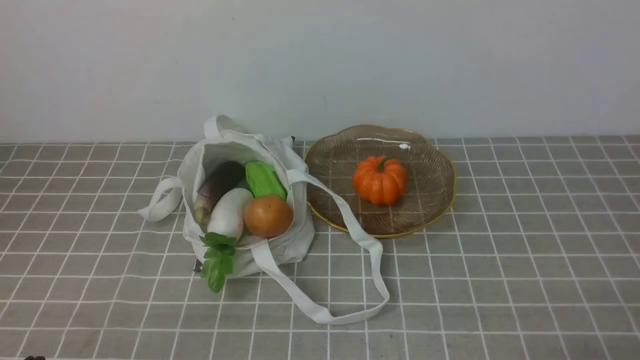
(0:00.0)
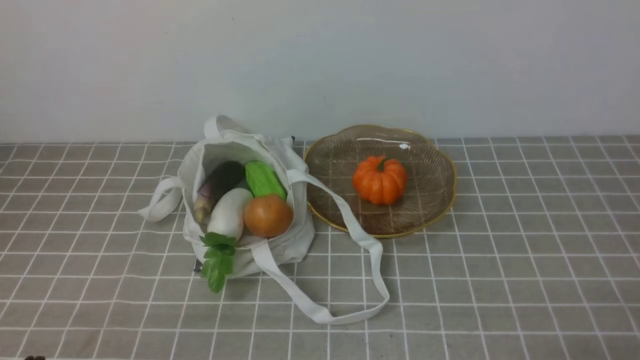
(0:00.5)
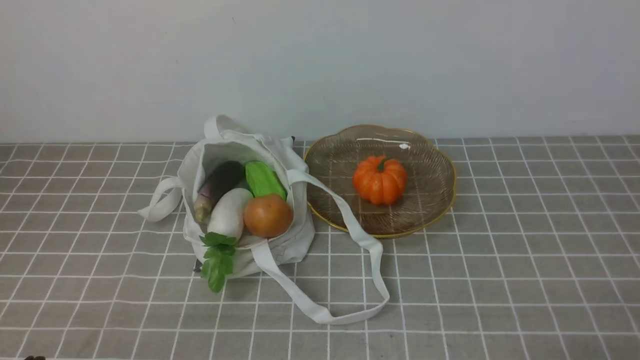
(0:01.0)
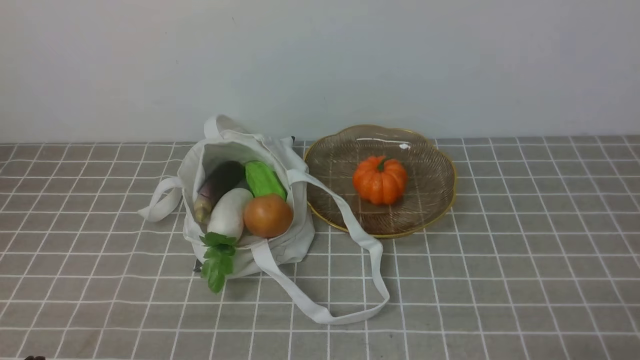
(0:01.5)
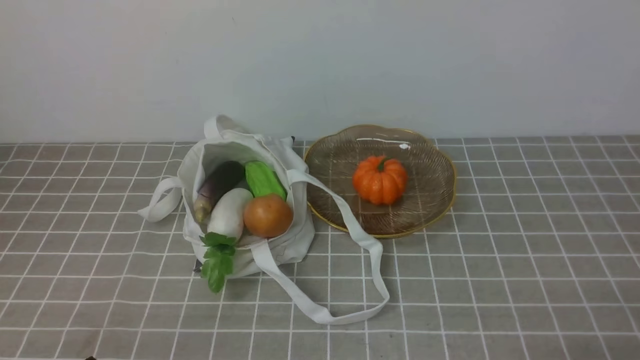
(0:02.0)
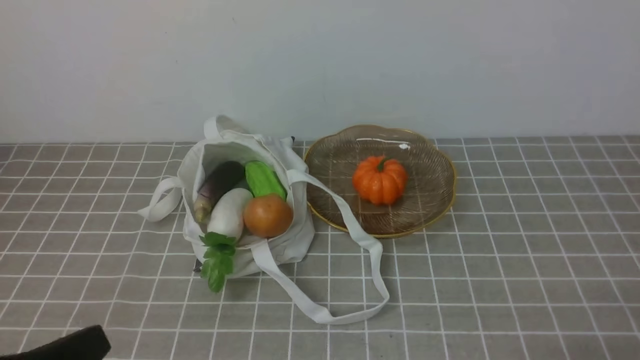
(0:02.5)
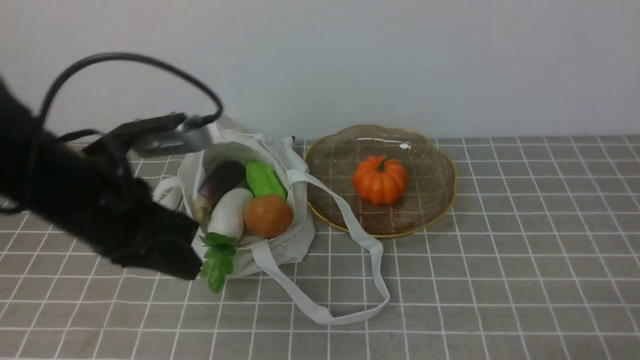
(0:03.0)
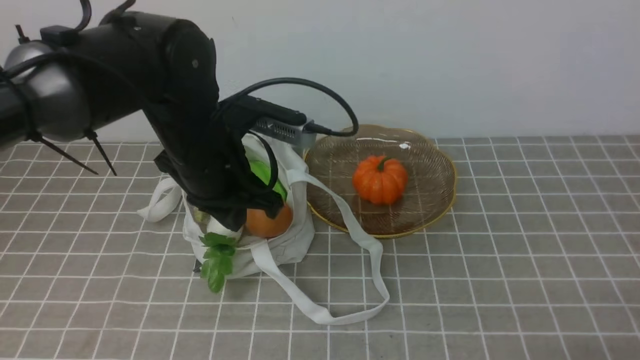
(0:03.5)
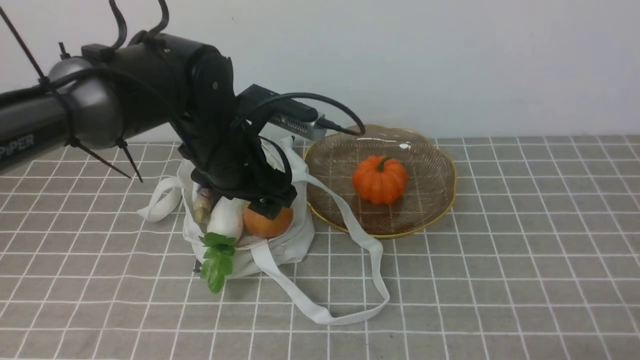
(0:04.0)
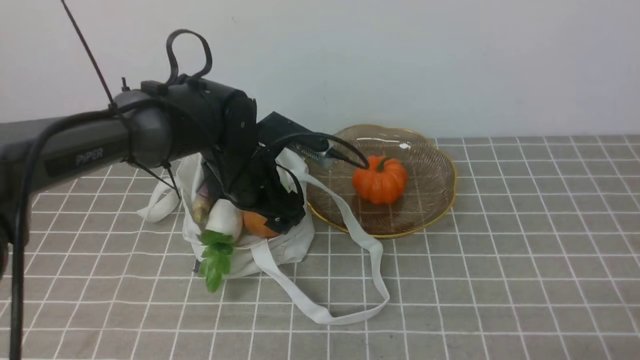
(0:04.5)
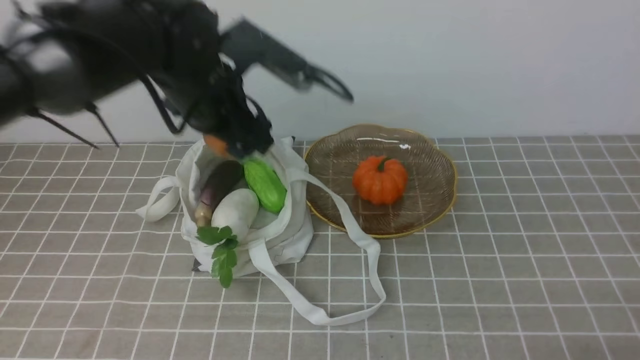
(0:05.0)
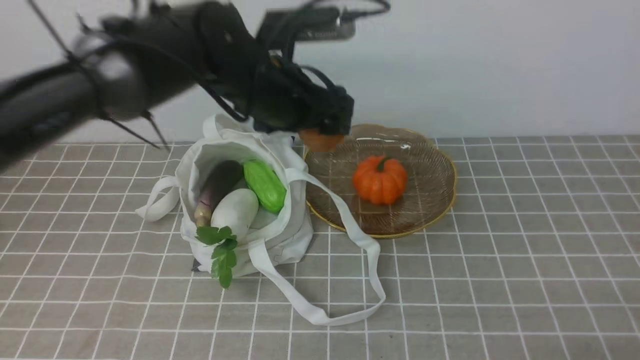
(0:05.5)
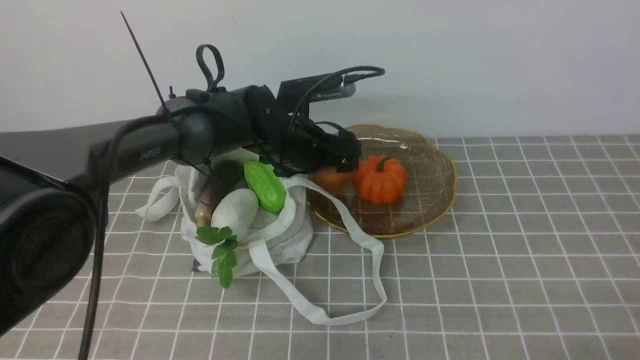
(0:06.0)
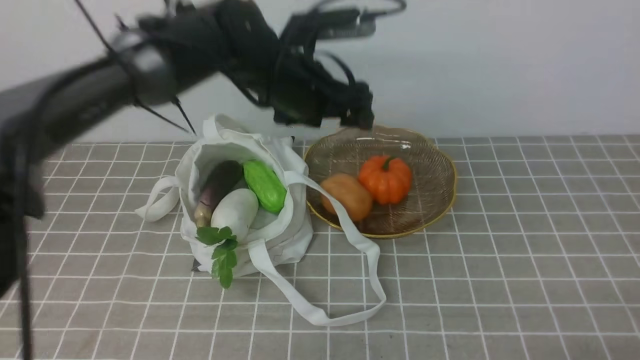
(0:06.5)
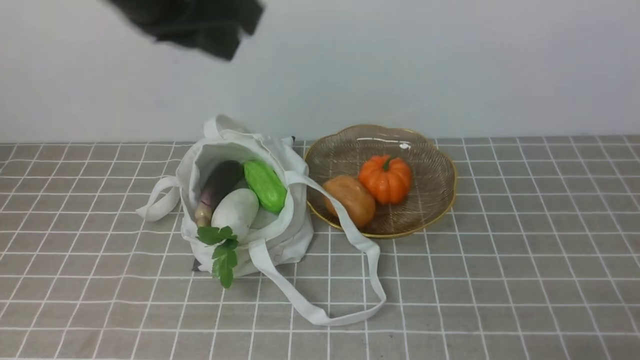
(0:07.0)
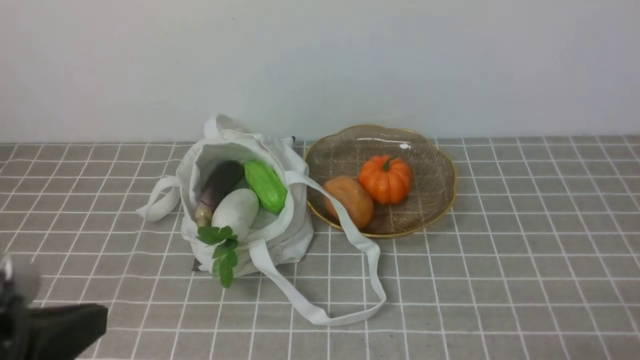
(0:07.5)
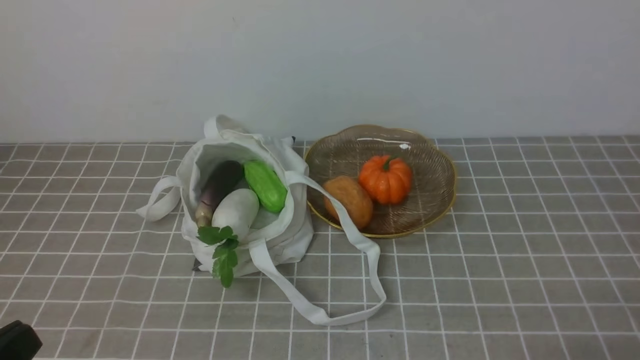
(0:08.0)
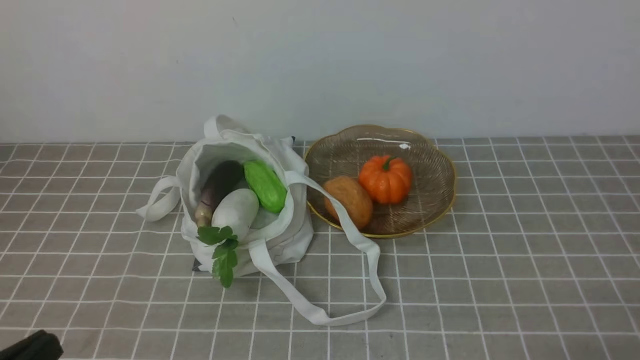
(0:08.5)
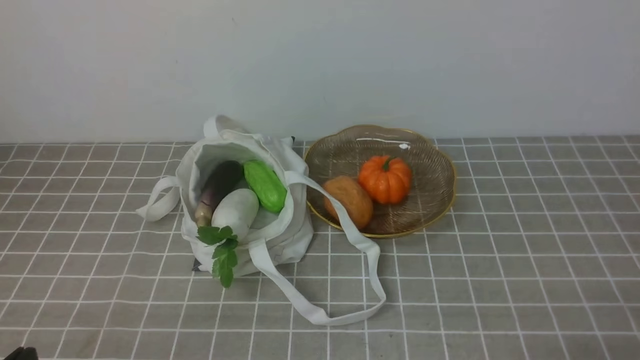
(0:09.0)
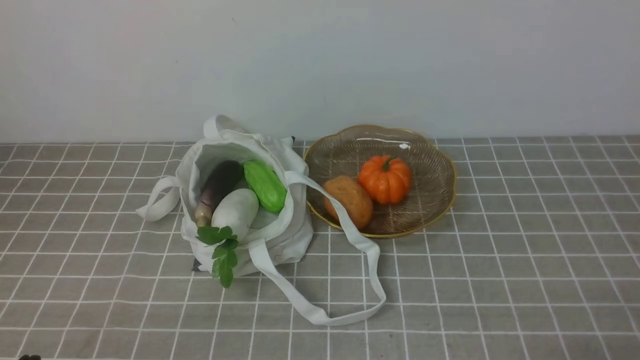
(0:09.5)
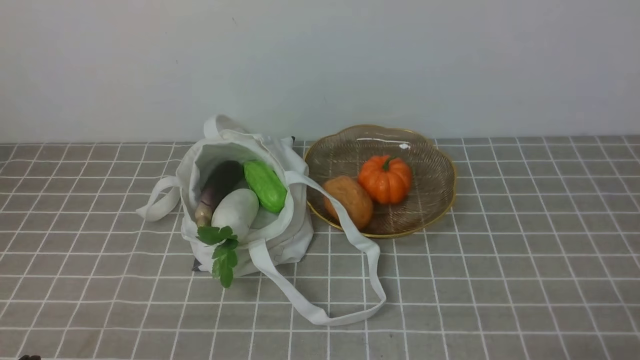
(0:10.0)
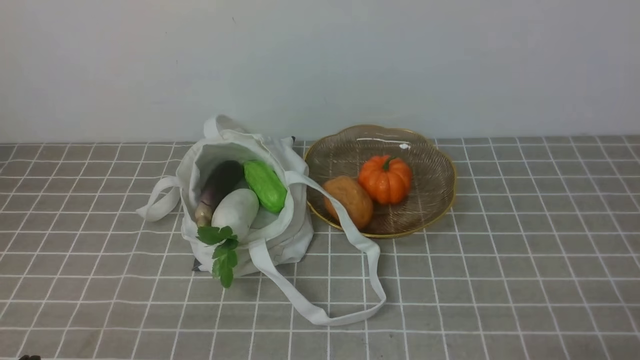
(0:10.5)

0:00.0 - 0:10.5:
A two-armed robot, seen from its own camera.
Task of the whole recording: take vegetables from bag on grey coffee tablecloth place on plate.
Step, 0:00.0 - 0:04.5: Grasp the potato with left gripper.
Step, 0:05.0 - 0:06.5: Place the potato on the plate with left gripper.
0:02.0 - 0:04.0: The left gripper shifts roughly 35 cm forward and to the right, and opens.
0:04.0 - 0:06.5: The left gripper goes up and down, some 10 cm each way, reversing 3 times.
0:06.5 - 0:08.5: The left gripper is displaced backward and to the left by roughly 40 cm, and closes.

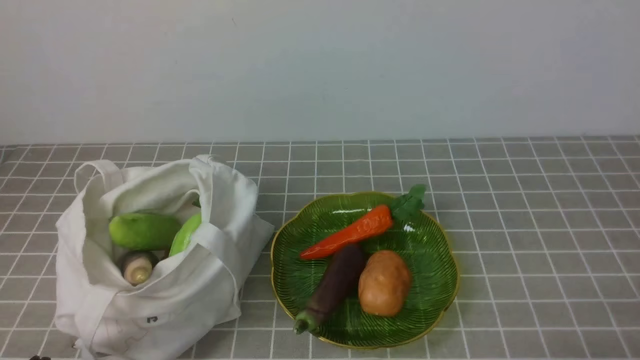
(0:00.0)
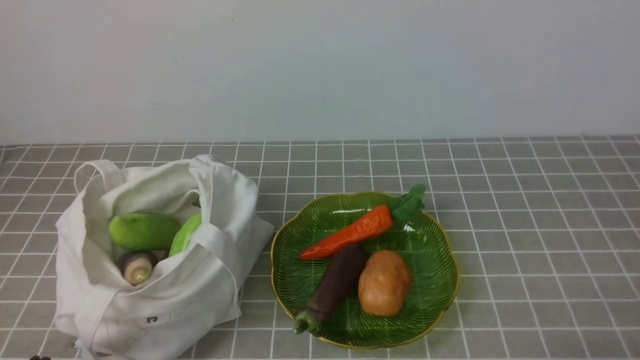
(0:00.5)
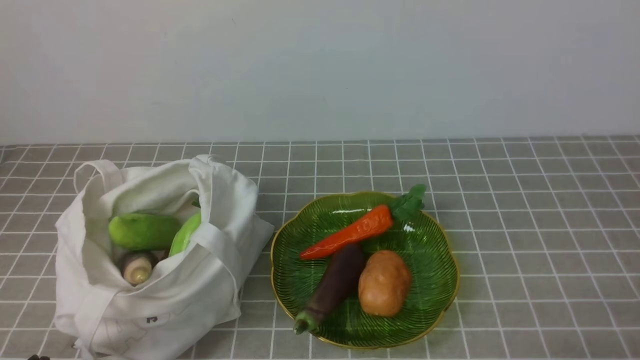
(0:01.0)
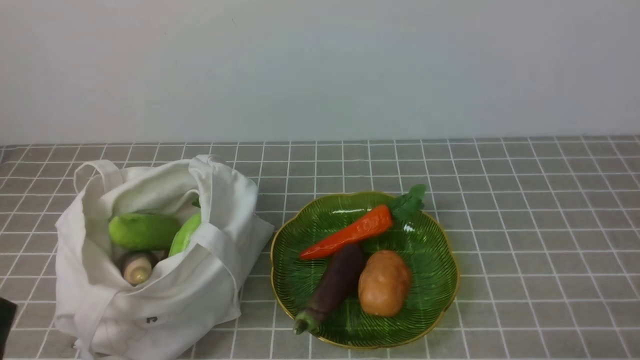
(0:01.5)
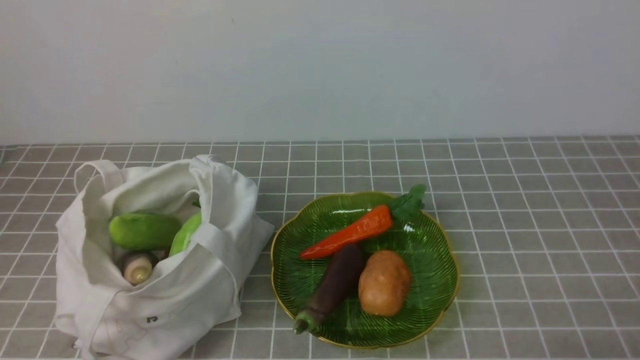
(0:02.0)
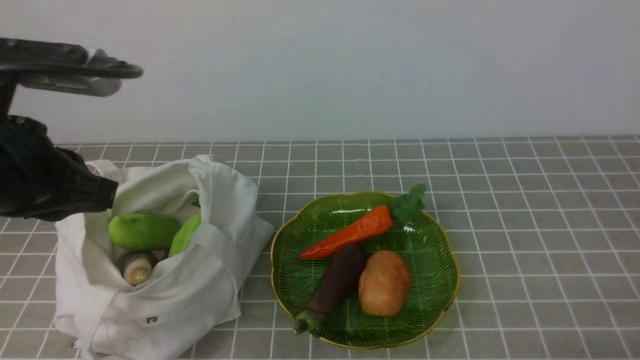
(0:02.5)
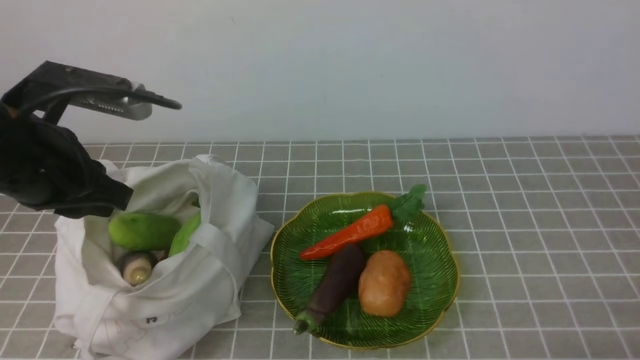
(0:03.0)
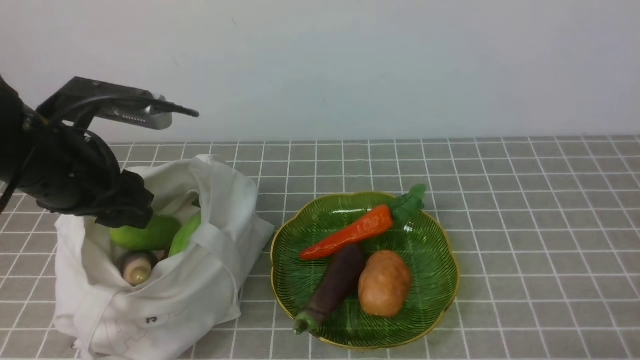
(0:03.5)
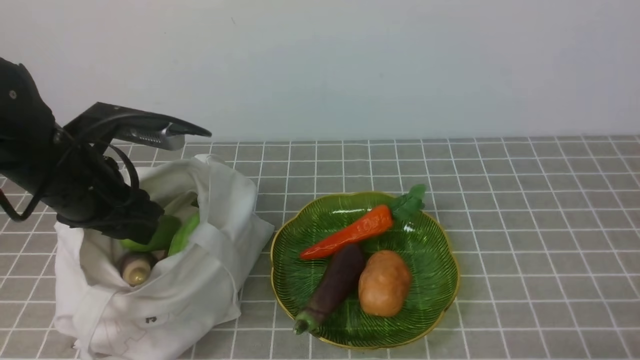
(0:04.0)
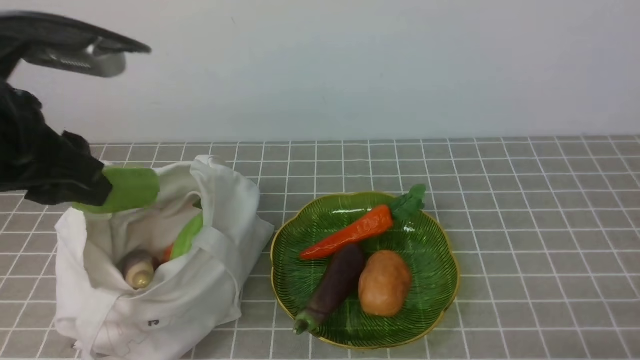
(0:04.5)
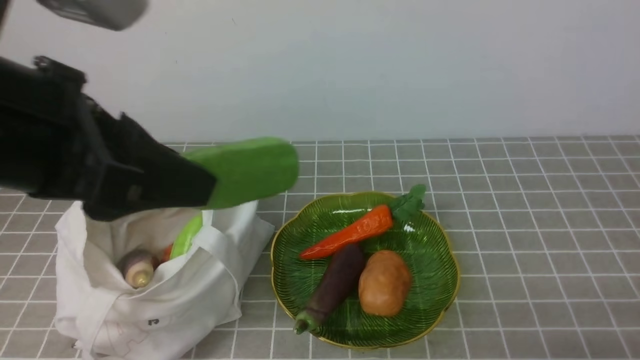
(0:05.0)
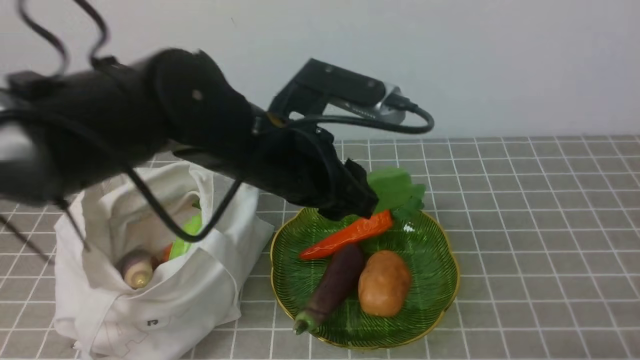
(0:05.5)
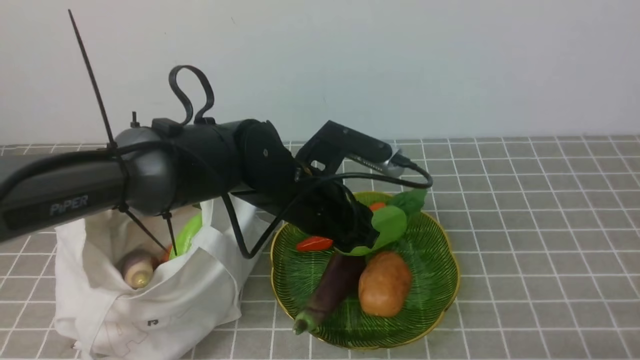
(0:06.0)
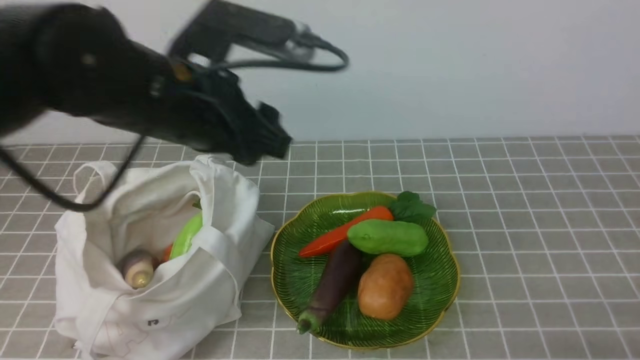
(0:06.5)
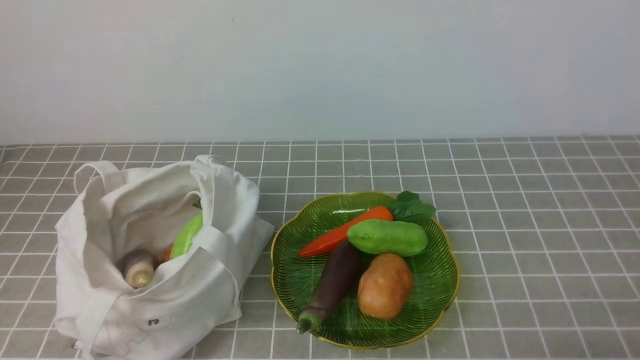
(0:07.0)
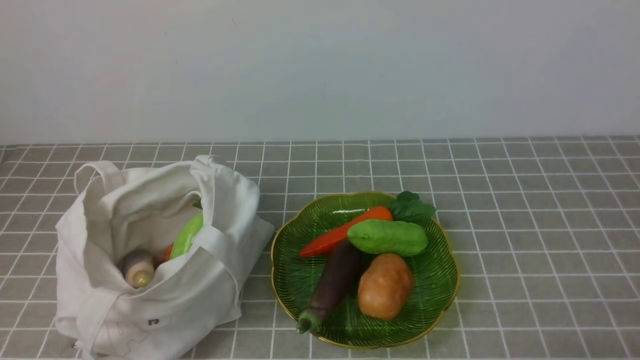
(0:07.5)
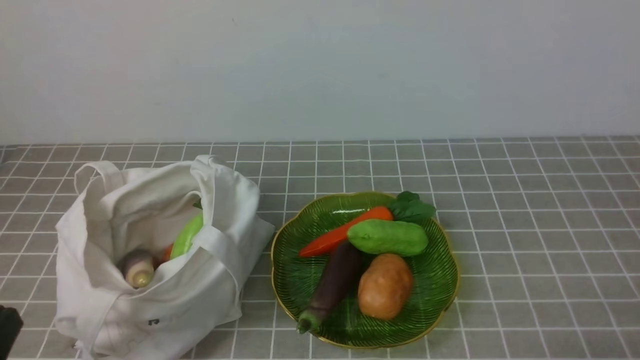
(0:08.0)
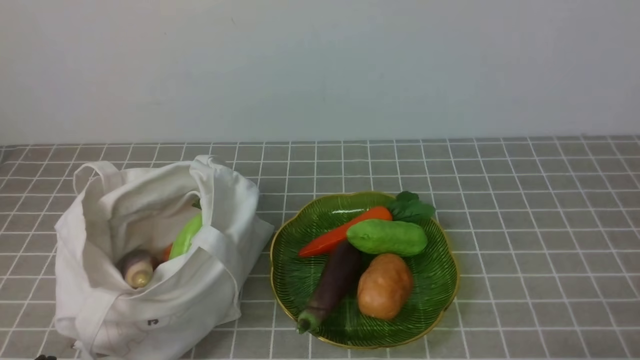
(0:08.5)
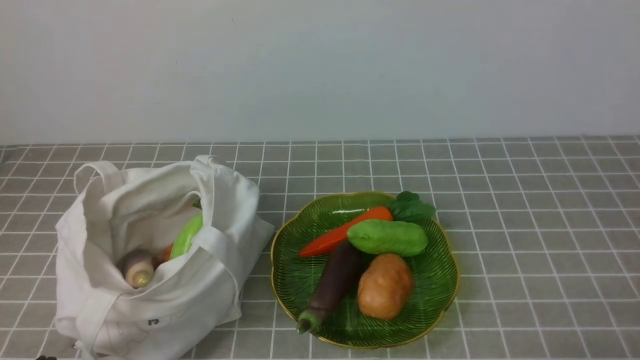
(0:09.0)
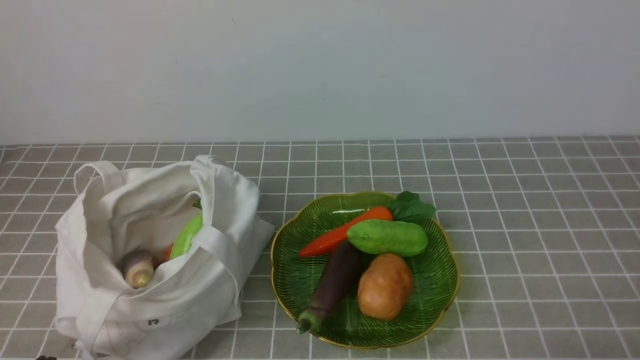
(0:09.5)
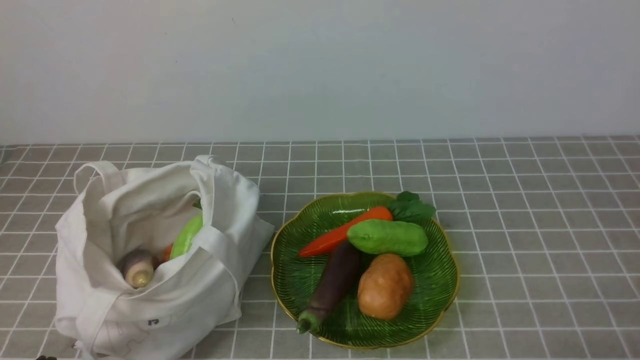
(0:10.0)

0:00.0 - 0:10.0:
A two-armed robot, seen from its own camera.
Task of the whole recording: take vegetables from bag on grey coffee tablecloth place on plate.
Step, 0:00.0 - 0:04.0: Grasp the bitter melon with left gripper.
Step, 0:04.5 - 0:06.0: Place the bitter melon on the plate with left gripper.
0:02.0 - 0:04.0: The left gripper goes approximately 25 cm forward, and opens its fingers.
0:04.0 - 0:06.0: The left gripper is displaced to the right by about 20 cm.
0:06.0 - 0:08.0: The left gripper travels backward and to the left by some 35 cm, and closes its fingers.
0:08.0 - 0:10.0: The left gripper moves downward, roughly 5 cm.
